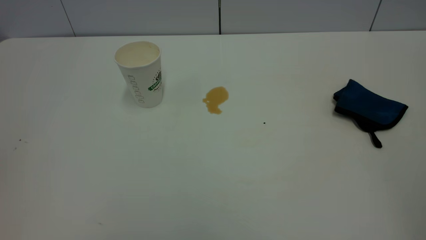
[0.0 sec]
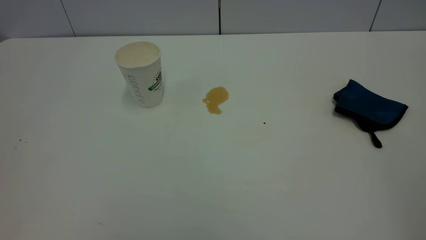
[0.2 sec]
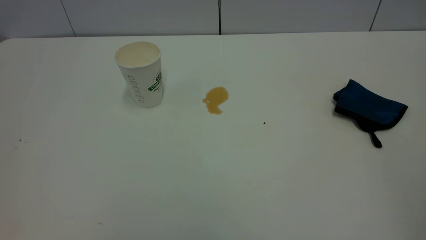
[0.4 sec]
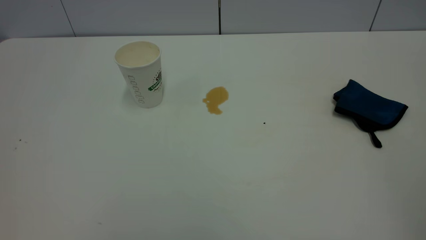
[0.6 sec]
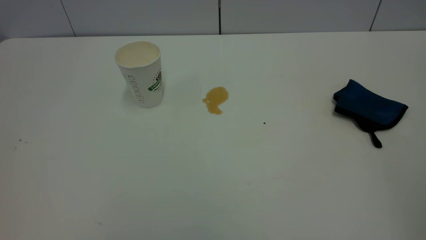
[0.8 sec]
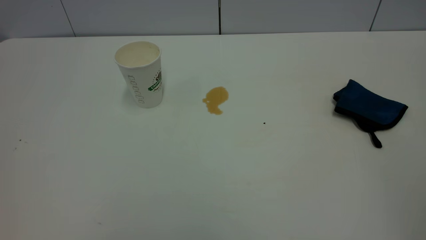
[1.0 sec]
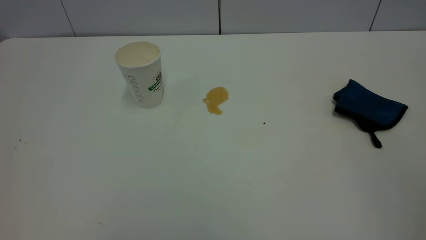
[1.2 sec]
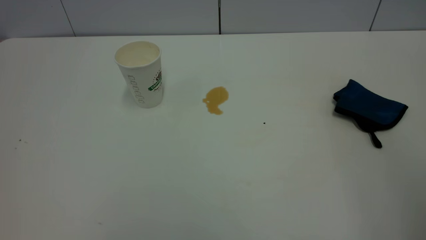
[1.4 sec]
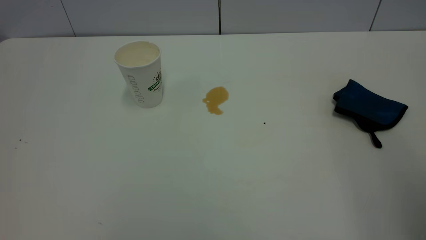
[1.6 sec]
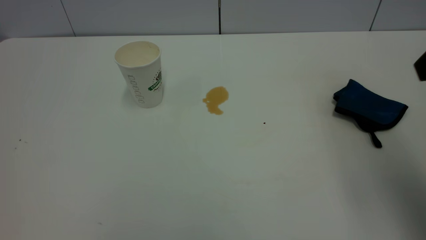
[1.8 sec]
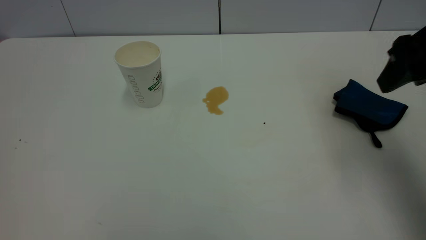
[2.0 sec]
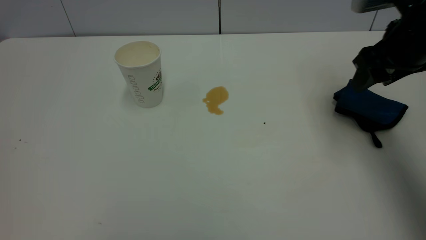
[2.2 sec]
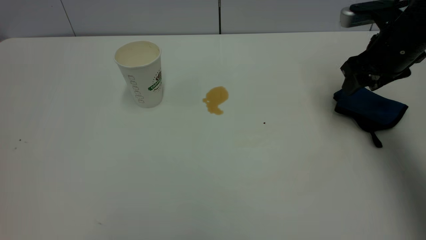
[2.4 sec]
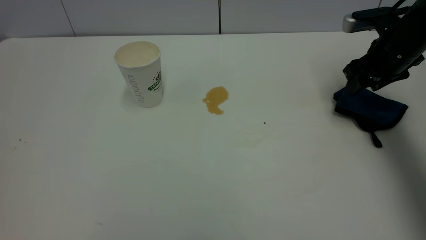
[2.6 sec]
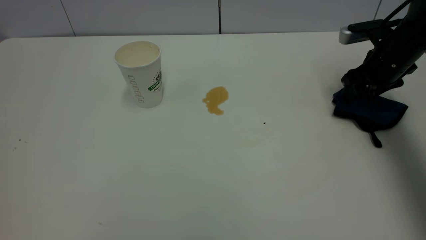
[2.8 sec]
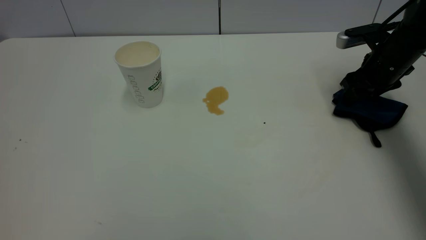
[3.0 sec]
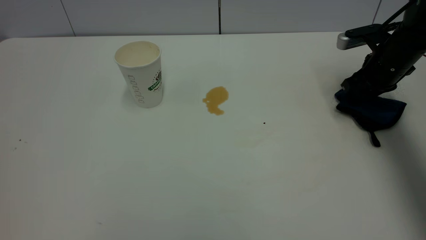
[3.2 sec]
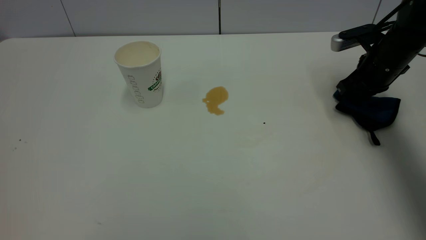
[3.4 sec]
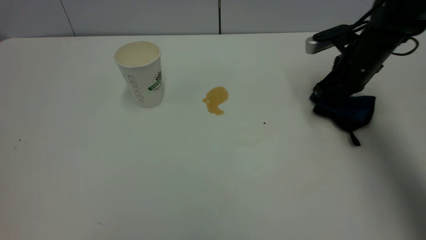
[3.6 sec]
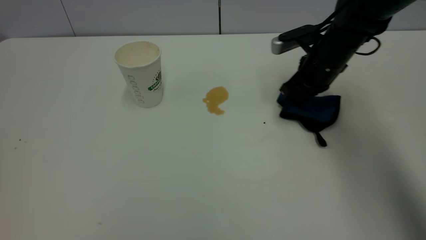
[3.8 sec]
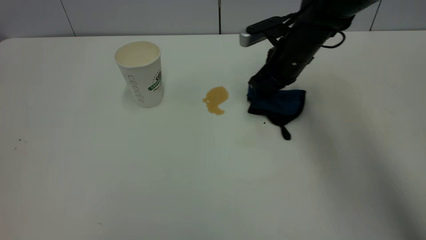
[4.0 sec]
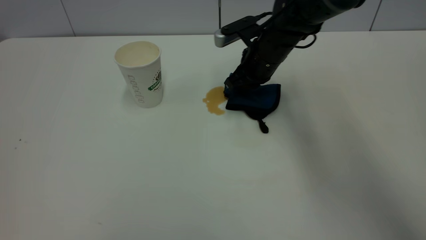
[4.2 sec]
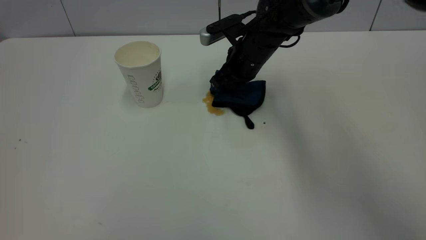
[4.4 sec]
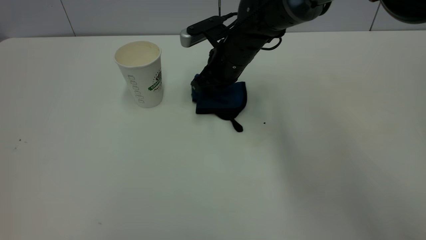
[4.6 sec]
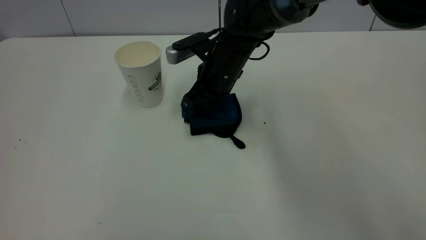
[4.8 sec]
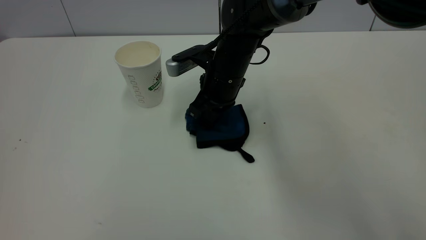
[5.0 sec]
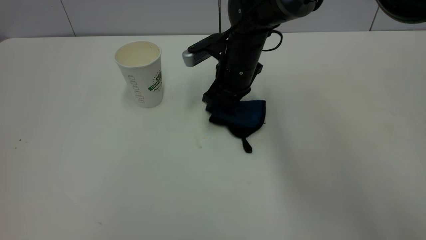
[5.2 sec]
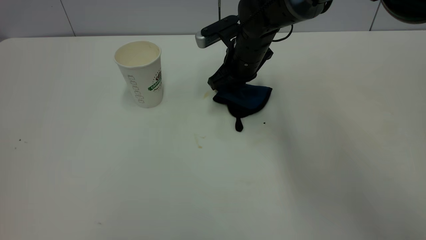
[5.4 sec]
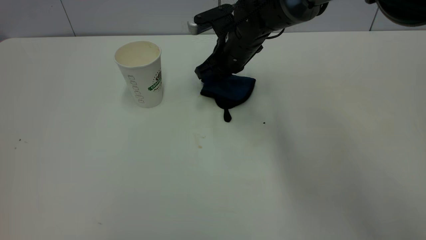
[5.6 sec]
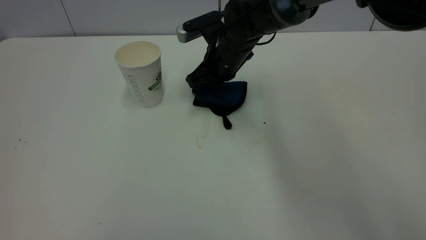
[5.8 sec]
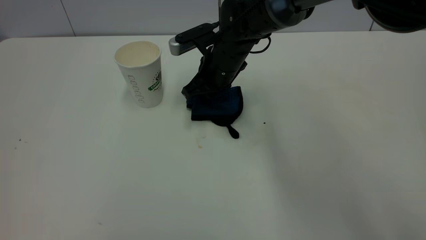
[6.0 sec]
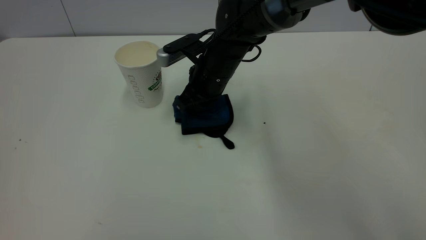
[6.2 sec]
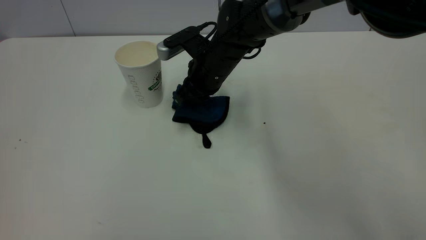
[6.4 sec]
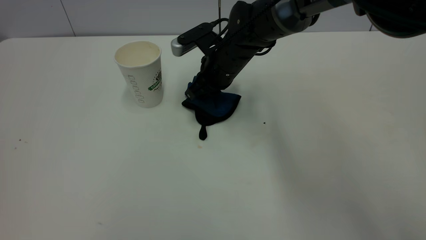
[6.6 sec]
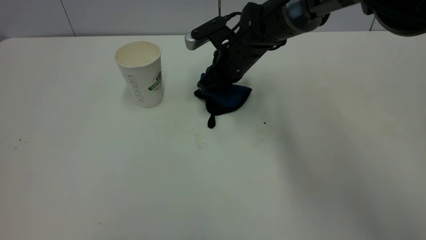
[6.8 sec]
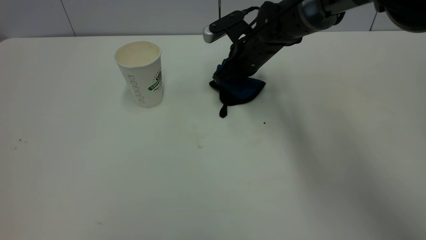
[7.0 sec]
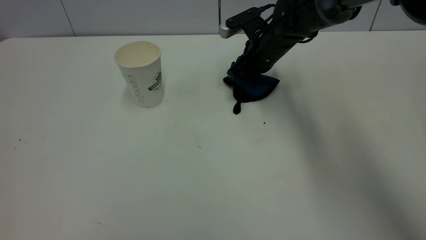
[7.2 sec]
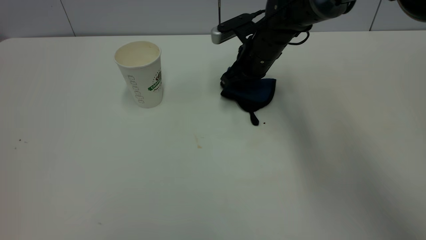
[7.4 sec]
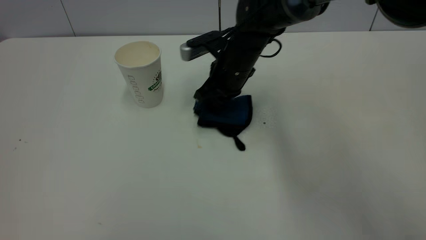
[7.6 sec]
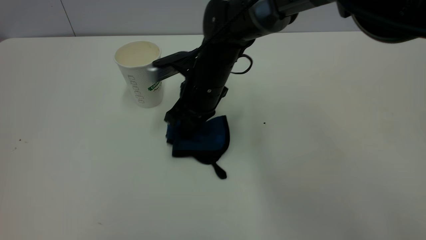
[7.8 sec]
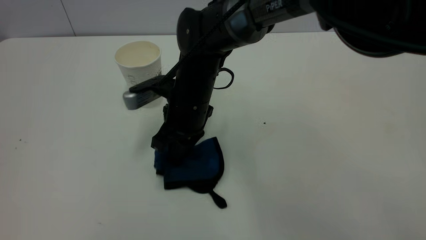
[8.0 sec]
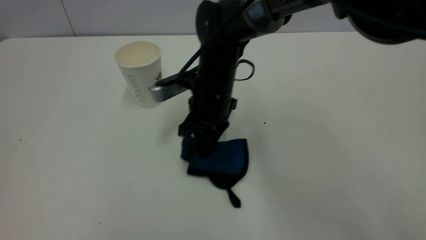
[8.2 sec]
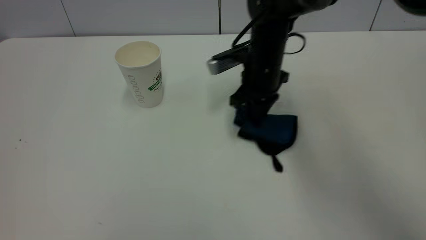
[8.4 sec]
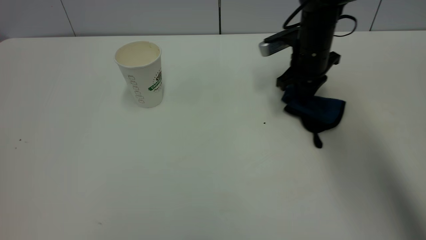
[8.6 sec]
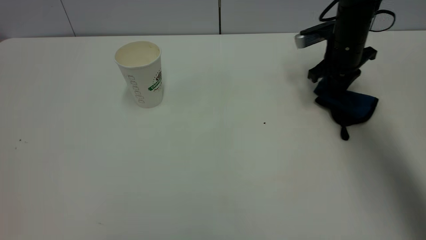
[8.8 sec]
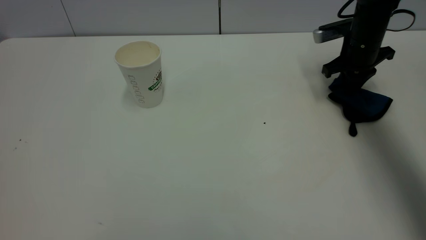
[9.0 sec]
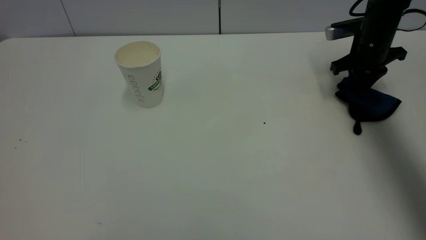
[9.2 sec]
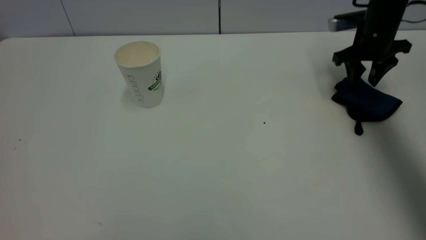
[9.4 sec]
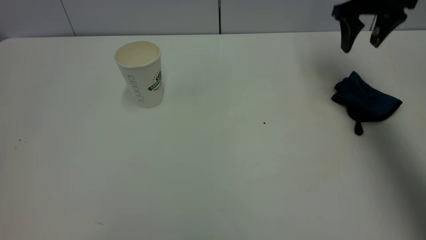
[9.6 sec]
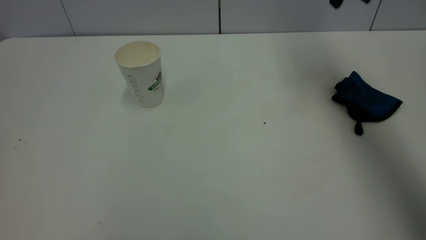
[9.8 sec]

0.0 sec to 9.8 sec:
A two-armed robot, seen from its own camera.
Task of the whole recording: the left gripper pick up the fallen cup and place it upright, the right gripper grasp the blue rag and wipe the tea stain on the table, the right gripper put the blue rag back in its original position.
Step, 0.0 sec to 9.4 sec: Wipe the stains off the table with a rag.
1.4 sec to 2.8 sec: The right gripper goes approximately 40 cm forward and downward.
2.8 sec to 4.2 sec: The right gripper heads to the left, covering approximately 20 cm, and closes up.
4.2 sec to 5.6 sec: The right gripper moves to the left, about 5 cm.
5.6 sec to 7.0 sec: The right gripper moves approximately 5 cm.
7.0 sec to 8.4 sec: The right gripper goes some 5 cm backward, and moves roughly 15 cm to the left and comes back.
8.4 sec to 9.8 sec: The right gripper travels upward and to the right by about 25 cm, and opens.

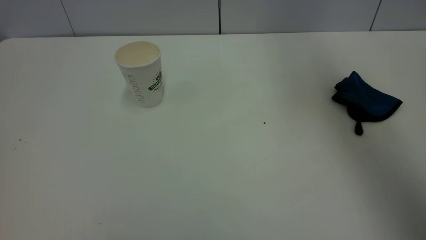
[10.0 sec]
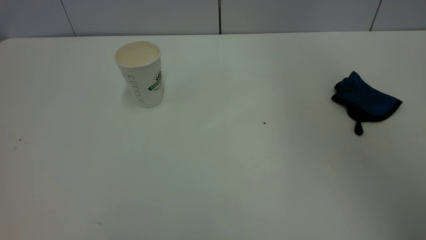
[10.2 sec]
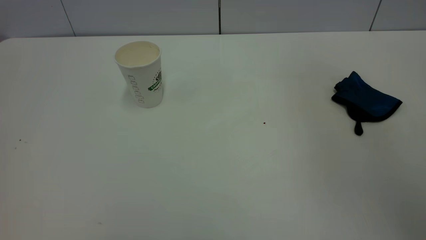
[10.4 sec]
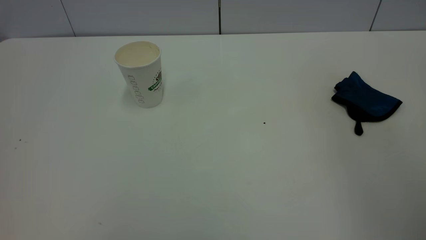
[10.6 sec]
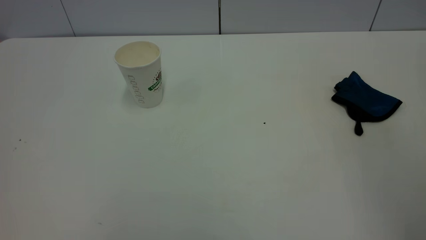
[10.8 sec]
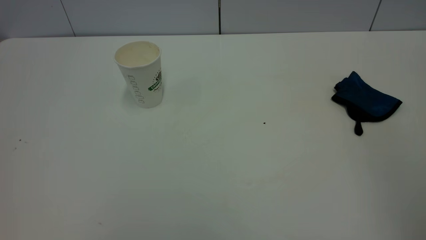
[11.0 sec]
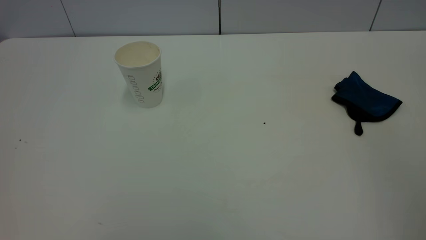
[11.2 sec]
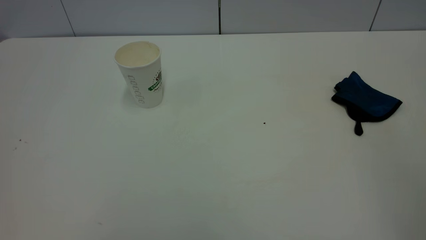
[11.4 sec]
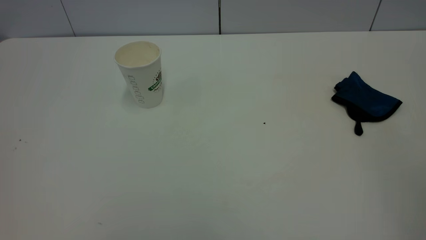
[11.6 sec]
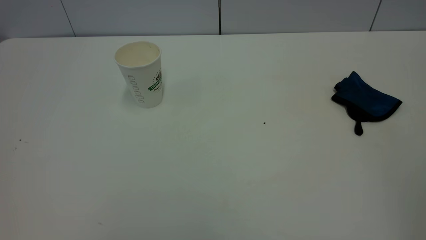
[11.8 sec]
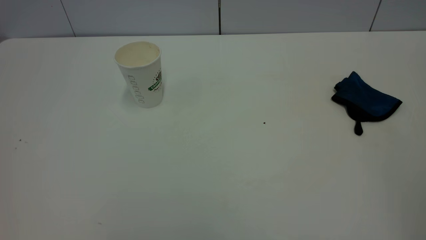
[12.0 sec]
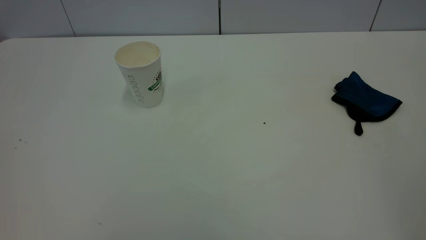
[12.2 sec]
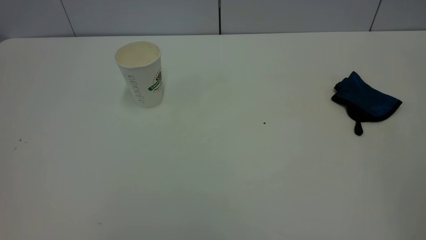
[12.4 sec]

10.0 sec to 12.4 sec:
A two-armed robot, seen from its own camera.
Task of the whole recording: the left gripper pick up the fallen cup and place it upright, the right gripper grasp the blue rag and wipe the tea stain on the table, the right gripper put the blue rag back in its original position.
10.0 sec to 11.2 sec: The right gripper heads backward, covering some 35 cm.
